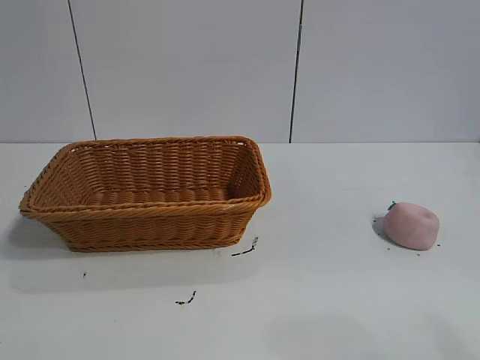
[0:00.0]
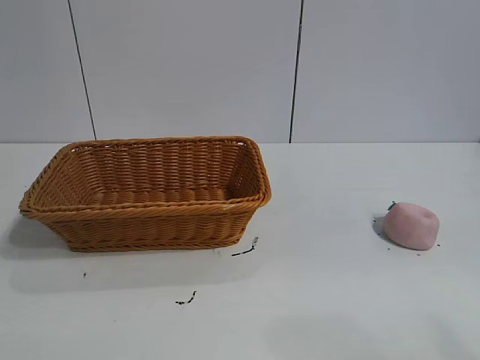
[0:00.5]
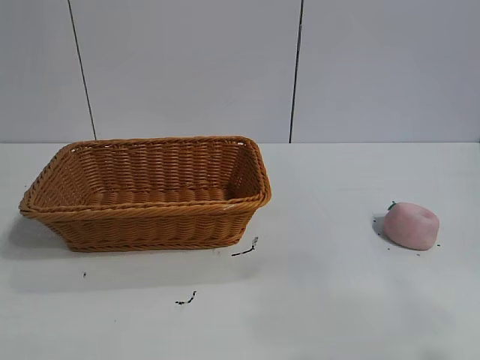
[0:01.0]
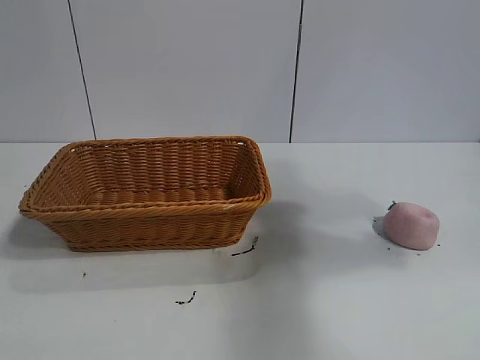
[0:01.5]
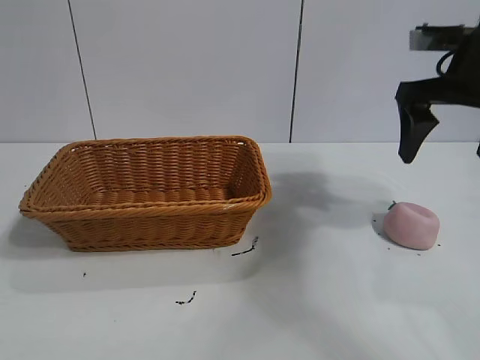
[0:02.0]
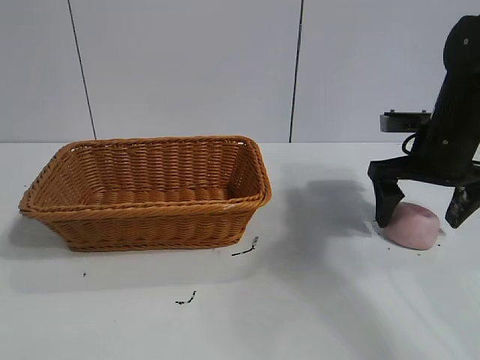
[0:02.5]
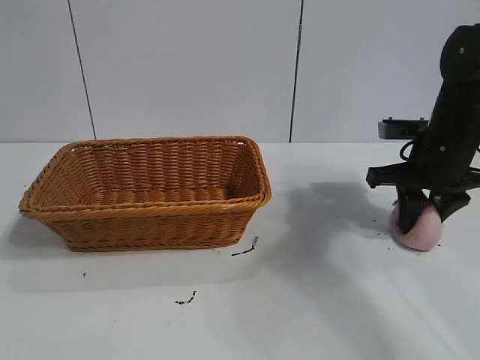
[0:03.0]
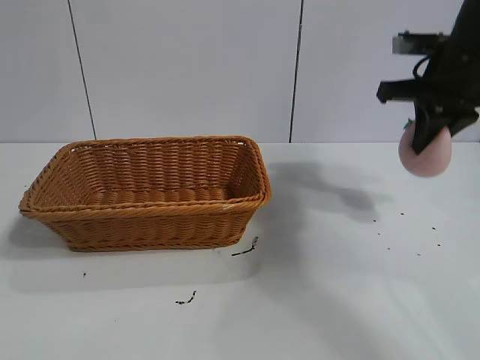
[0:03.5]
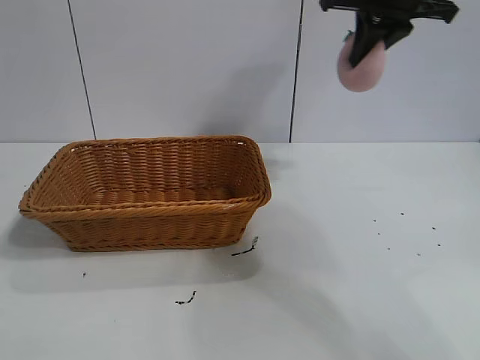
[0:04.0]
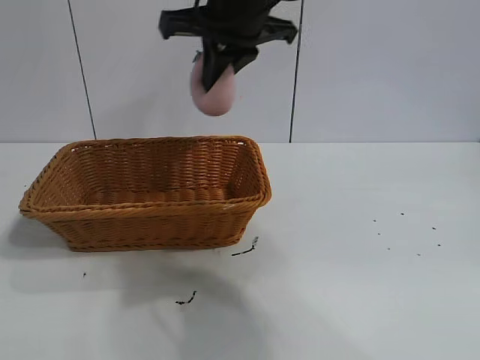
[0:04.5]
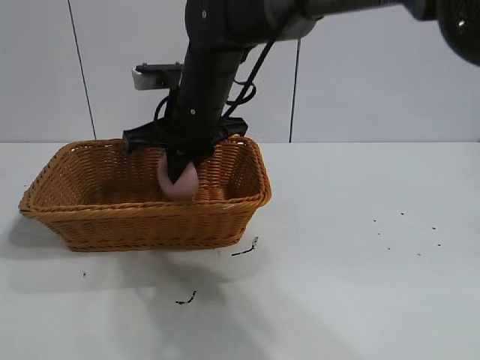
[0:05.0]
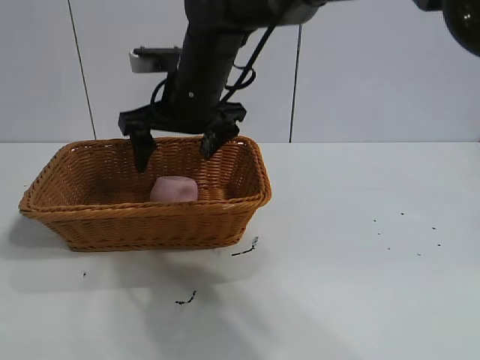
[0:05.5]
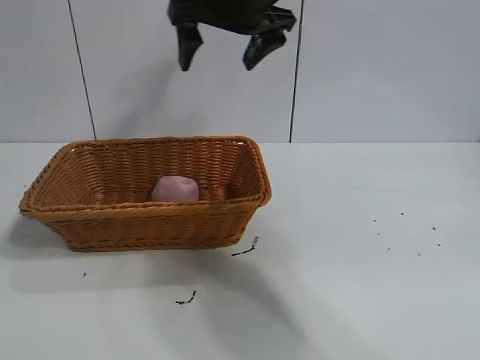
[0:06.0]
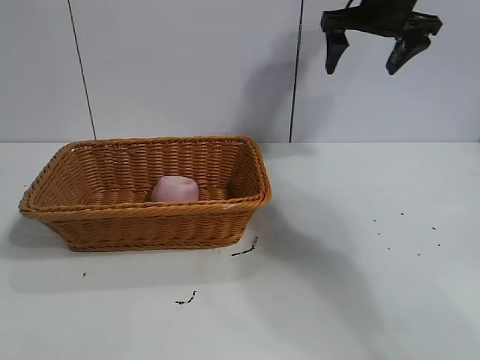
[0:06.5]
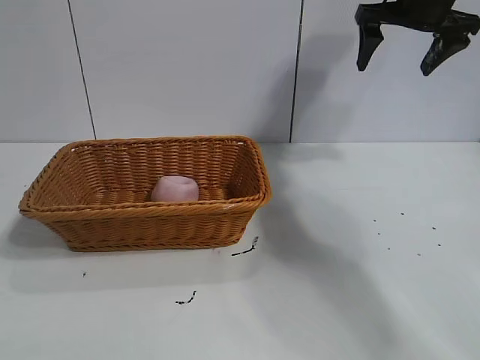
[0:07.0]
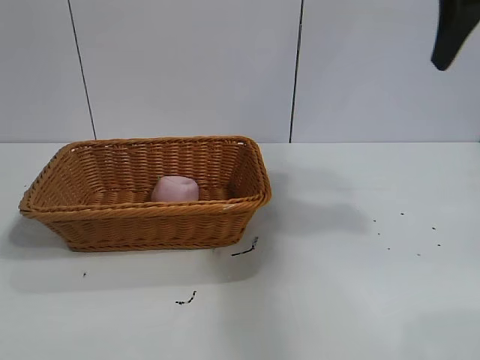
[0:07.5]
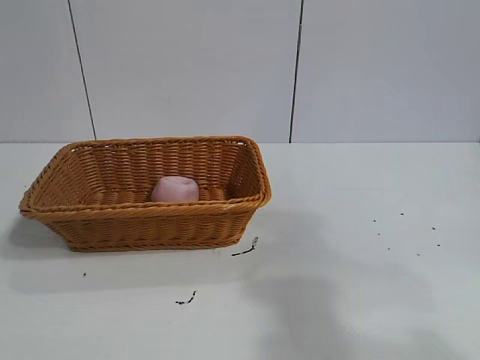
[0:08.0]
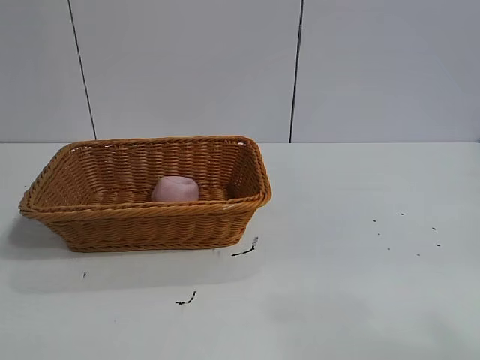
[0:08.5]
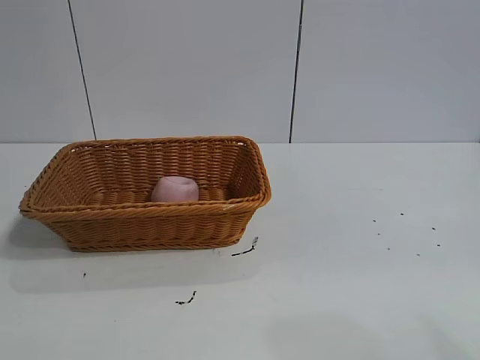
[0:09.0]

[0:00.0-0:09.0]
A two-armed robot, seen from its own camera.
Task of the whole recording: pick up the peach and put it into the basket.
Step, 0:01.0 to 0:03.0: Grasp the peach with right gripper.
Step, 0:03.5 to 0:05.0: Place the peach in the basket with right gripper.

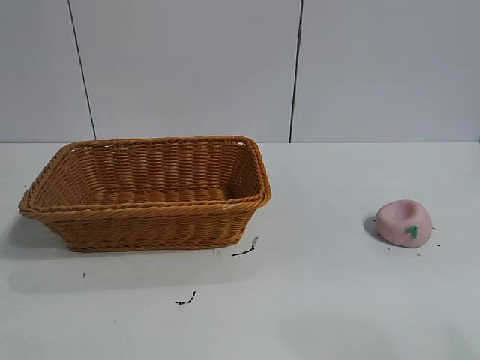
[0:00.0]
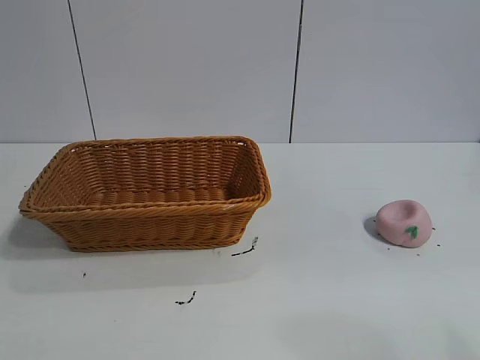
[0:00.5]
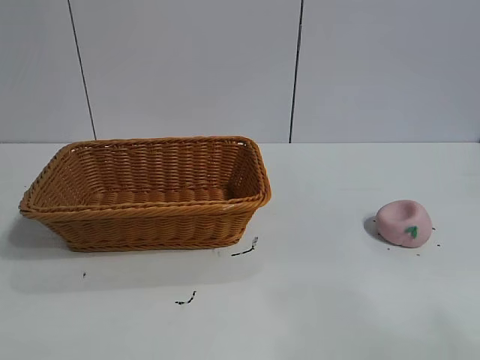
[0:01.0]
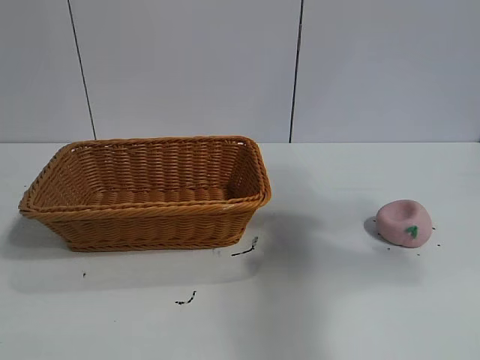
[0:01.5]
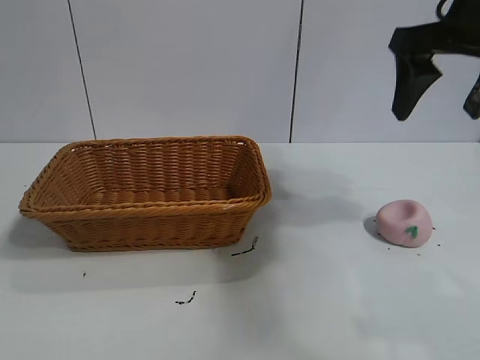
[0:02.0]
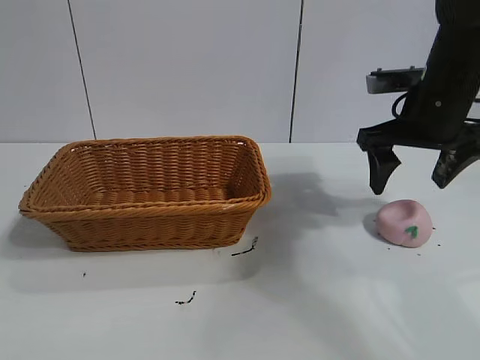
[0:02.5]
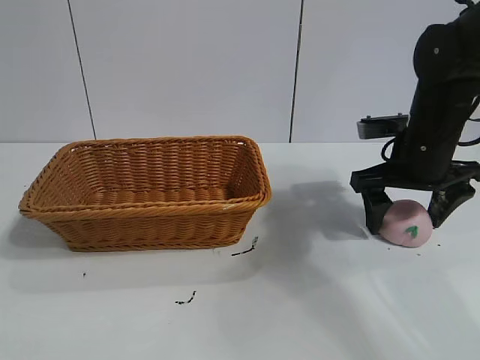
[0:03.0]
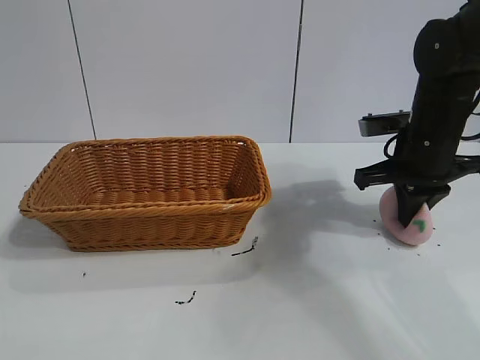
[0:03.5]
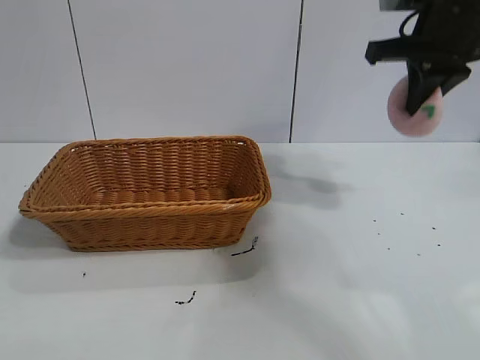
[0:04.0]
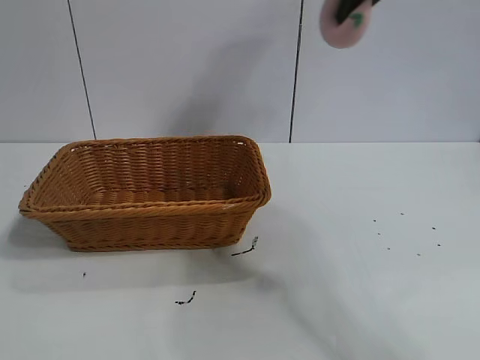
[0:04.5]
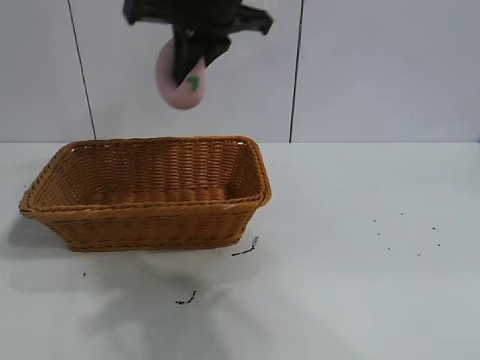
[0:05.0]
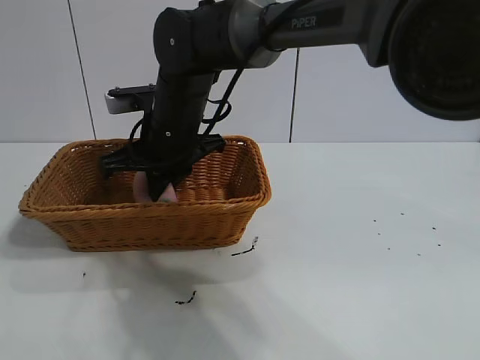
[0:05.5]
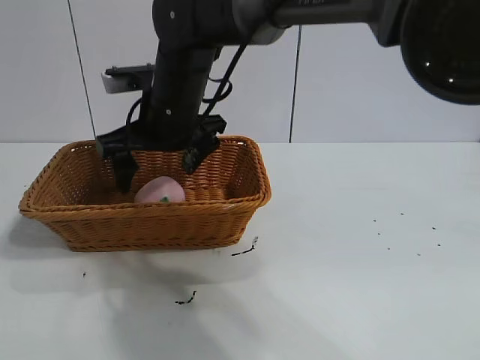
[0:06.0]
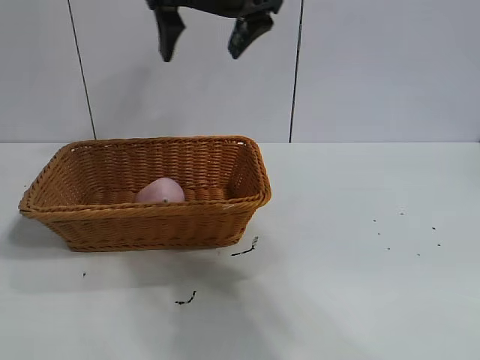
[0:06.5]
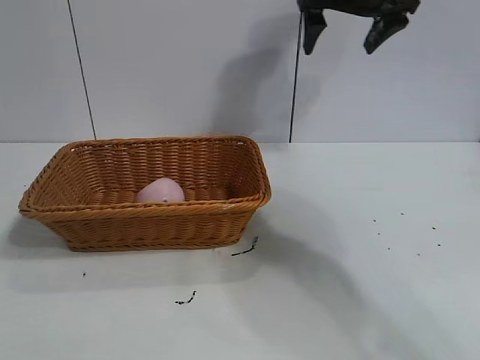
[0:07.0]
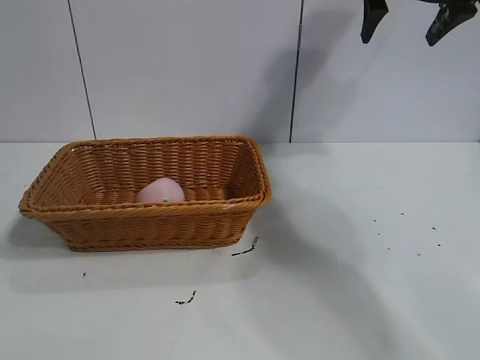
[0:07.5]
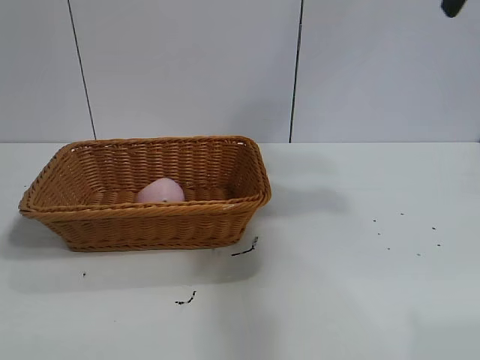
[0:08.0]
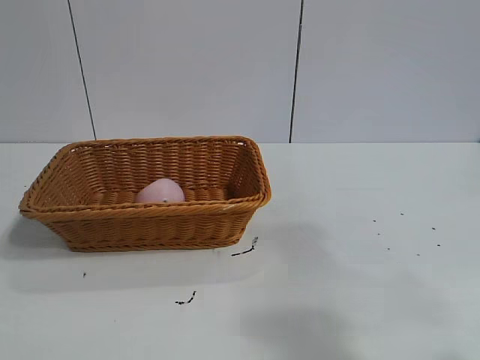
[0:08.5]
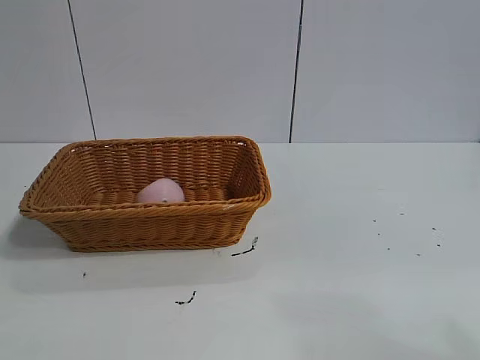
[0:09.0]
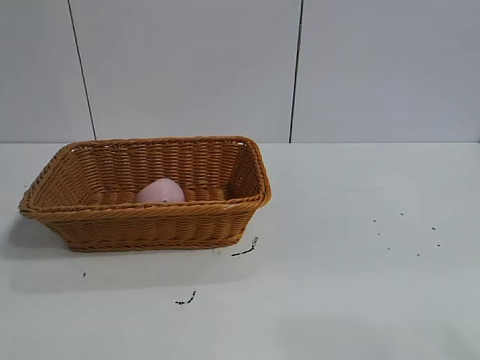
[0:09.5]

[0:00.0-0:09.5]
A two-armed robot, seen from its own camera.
Task of the whole recording: pick up the peach and put it into the basket.
Step, 0:01.0 to 0:03.5: Grasp the peach with right gripper.
Step, 0:04.0 to 0:06.0: Place the peach in the basket with right gripper.
